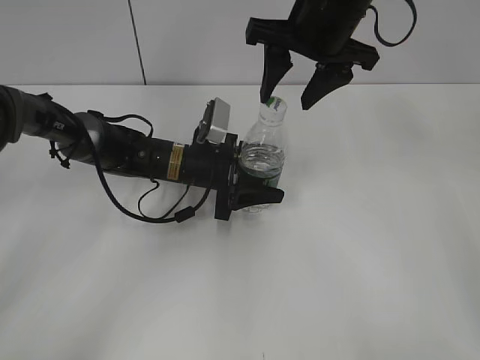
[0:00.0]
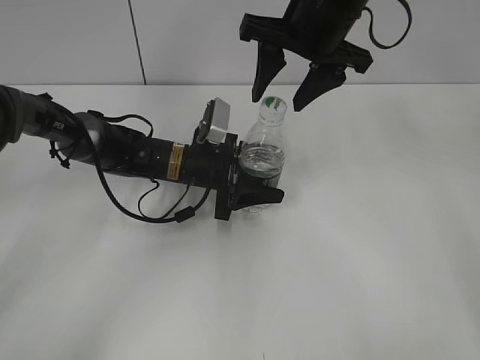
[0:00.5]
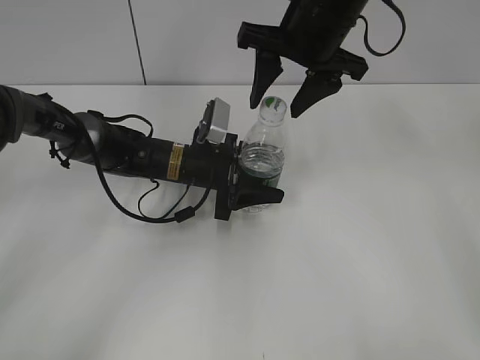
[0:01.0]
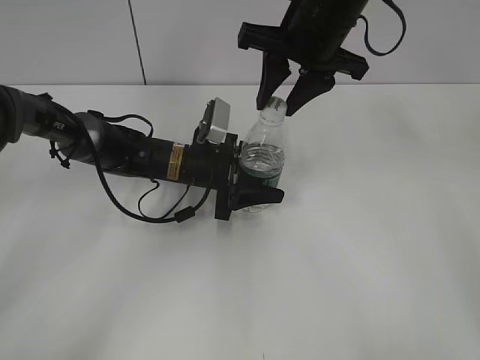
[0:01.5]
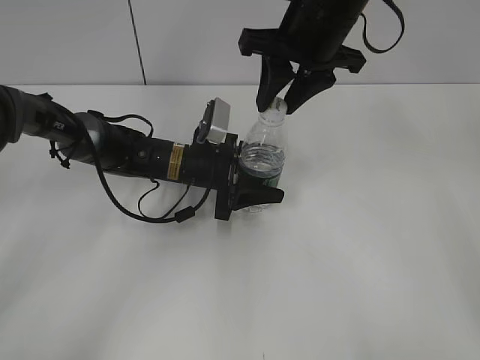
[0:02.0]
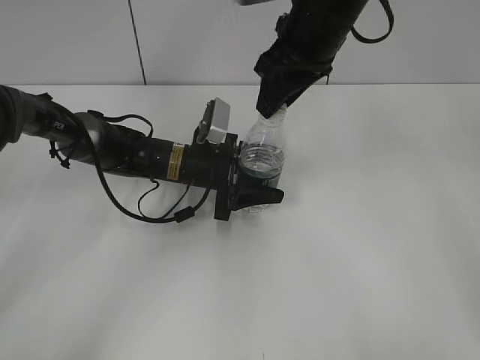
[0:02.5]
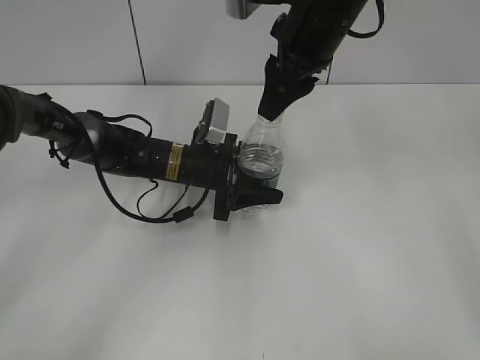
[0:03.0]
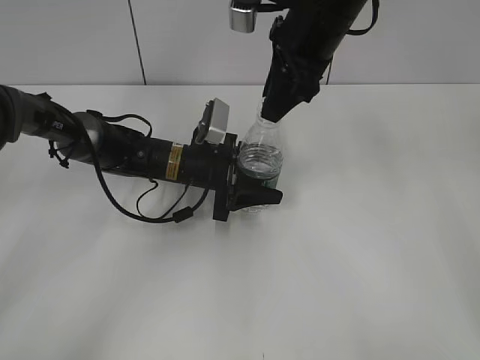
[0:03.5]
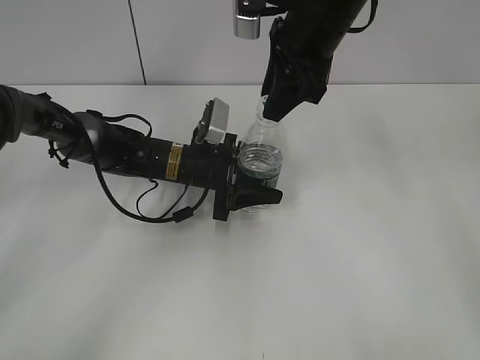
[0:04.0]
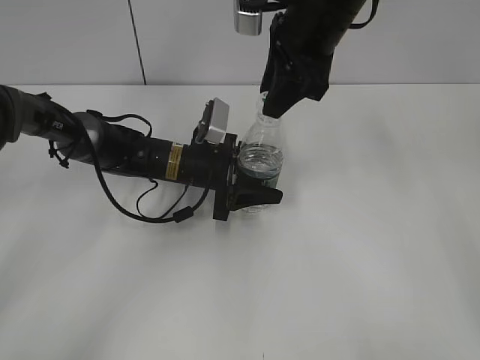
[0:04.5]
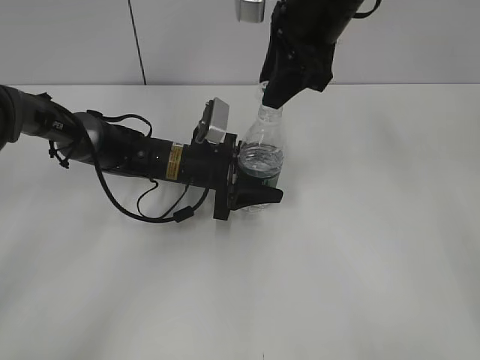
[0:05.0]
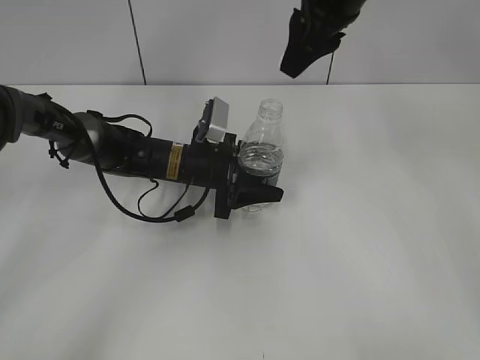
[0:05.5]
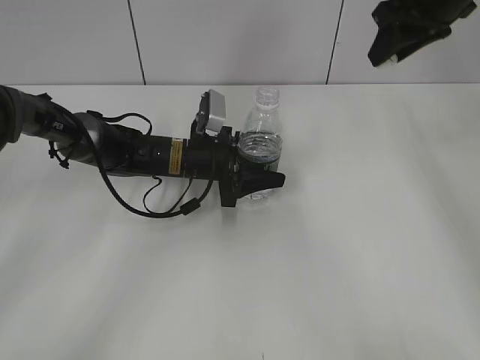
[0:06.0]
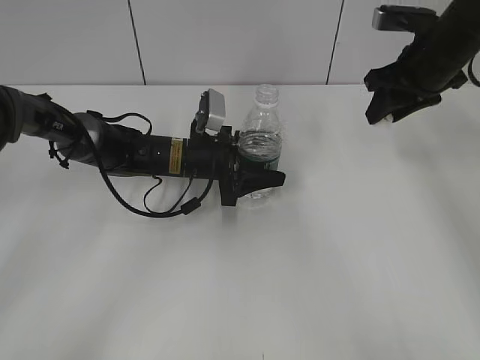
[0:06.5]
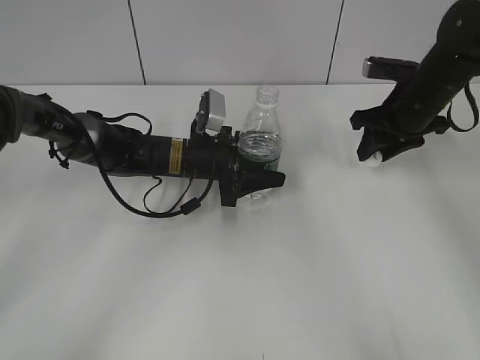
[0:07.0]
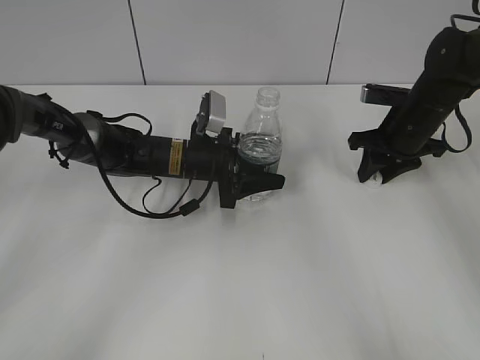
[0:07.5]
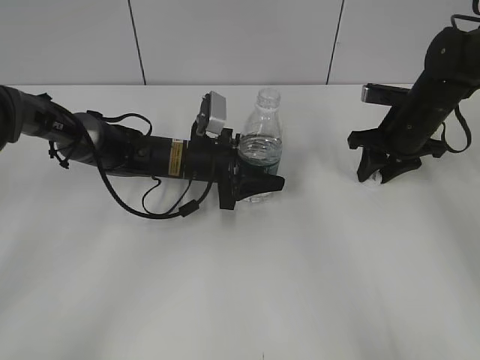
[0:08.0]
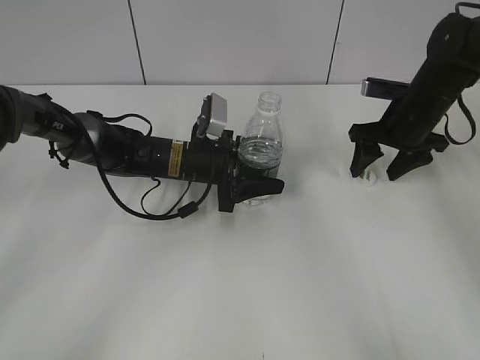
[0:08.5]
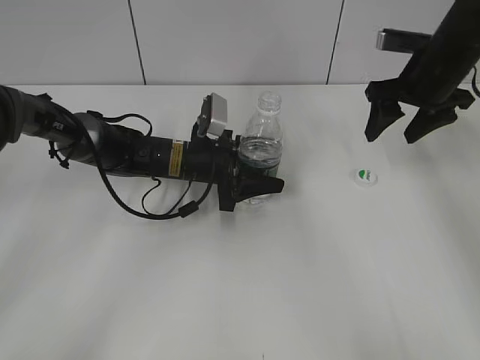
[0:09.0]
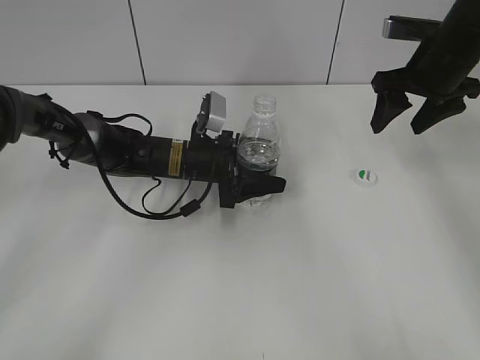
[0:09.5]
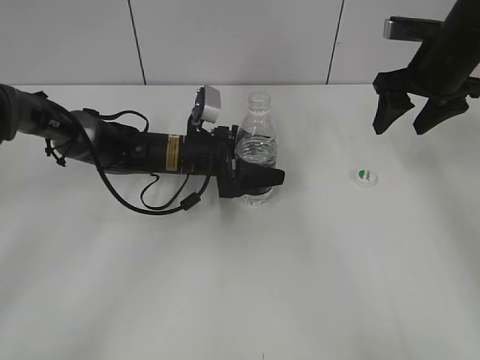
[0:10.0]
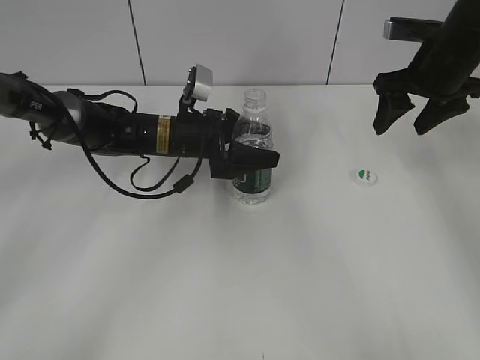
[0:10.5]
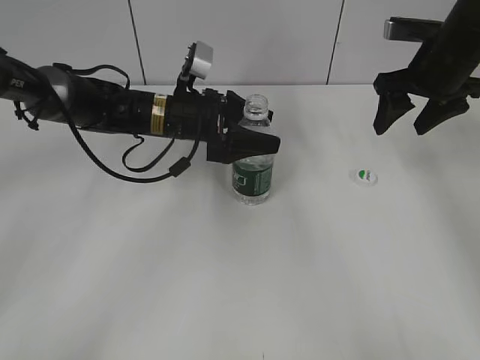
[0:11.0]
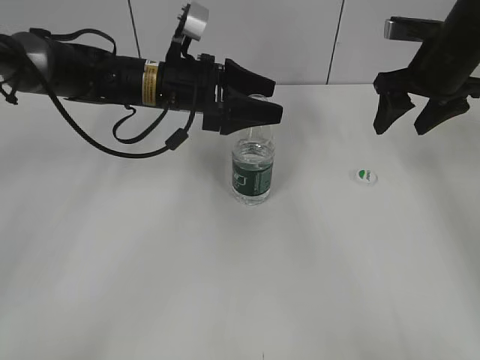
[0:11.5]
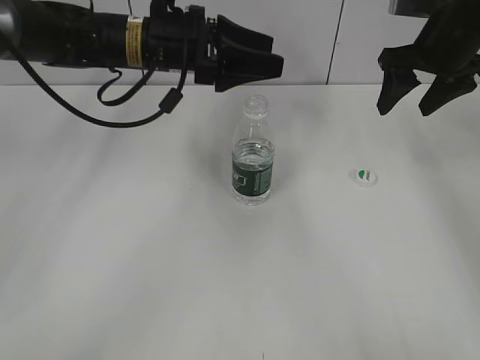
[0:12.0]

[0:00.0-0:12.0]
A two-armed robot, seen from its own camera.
Step, 0:00.0 to 0:05.0: Unscrew the bottle cap with the right gripper while holding the bottle with the left gripper.
Step, 0:05.5 to 0:08.5: Place the bottle cap on the table with the right gripper.
Step, 0:09.0 to 0:10.5: Place the bottle on the table with the left gripper.
0:00.0 to 0:02.0: The right gripper closes its fingers.
0:04.0 to 0:06.0: The right gripper is displaced to the right by approximately 15 cm.
0:06.0 to 0:08.0: The right gripper heads downward, covering about 20 cm.
0:08.0 to 0:10.0: The right gripper moves upward, approximately 10 cm, and opens up. Meanwhile the left gripper opens up.
0:10.0 to 0:12.0: The left gripper travels upward by roughly 15 cm.

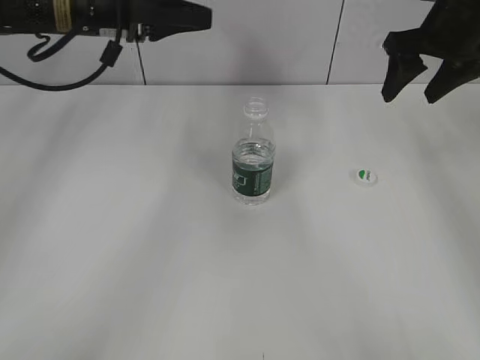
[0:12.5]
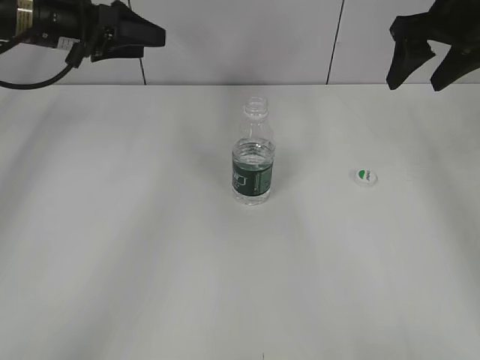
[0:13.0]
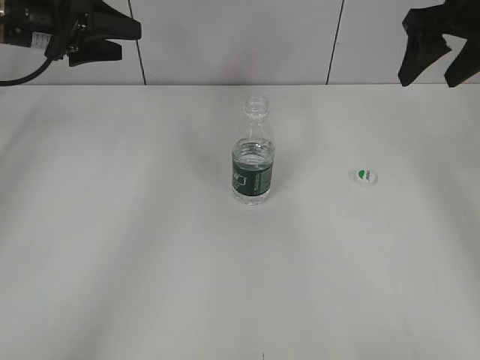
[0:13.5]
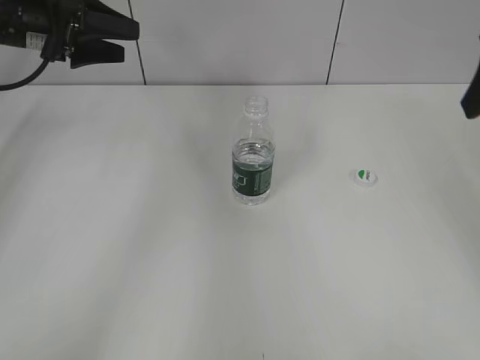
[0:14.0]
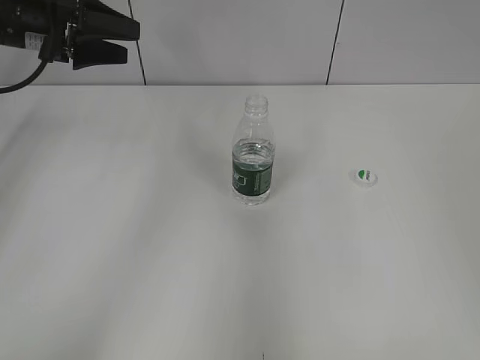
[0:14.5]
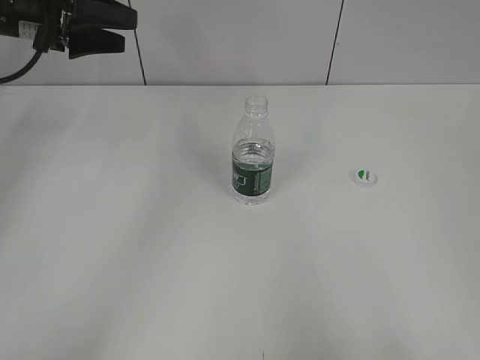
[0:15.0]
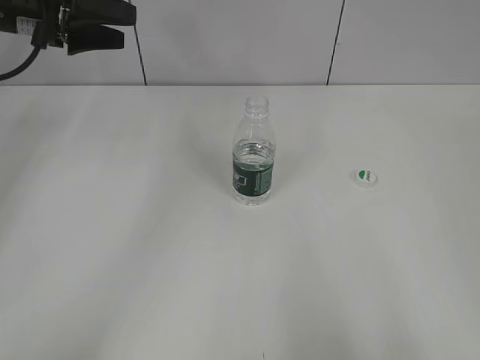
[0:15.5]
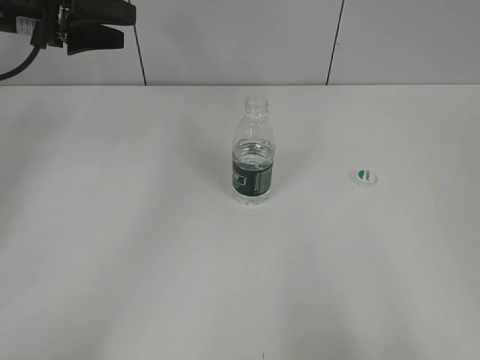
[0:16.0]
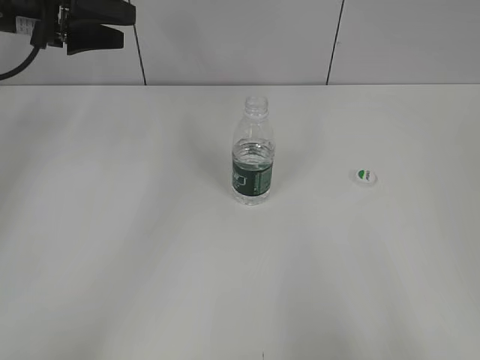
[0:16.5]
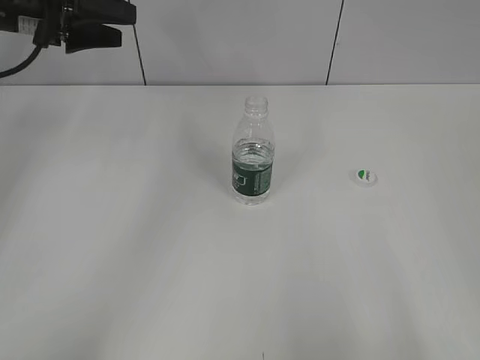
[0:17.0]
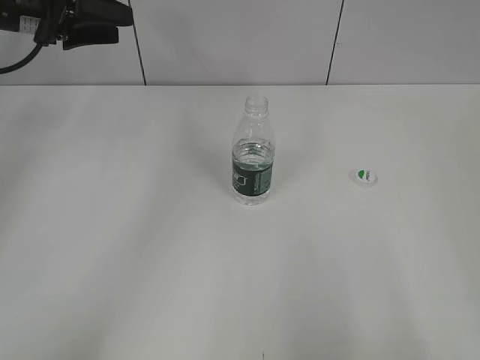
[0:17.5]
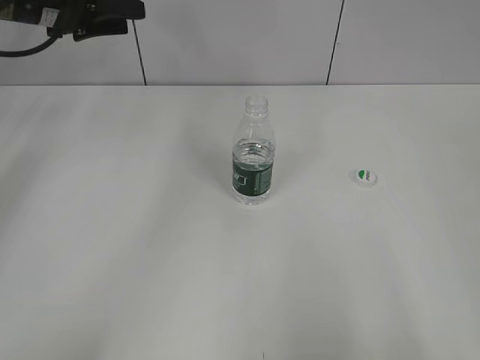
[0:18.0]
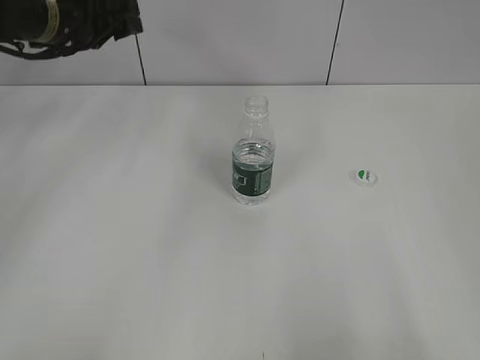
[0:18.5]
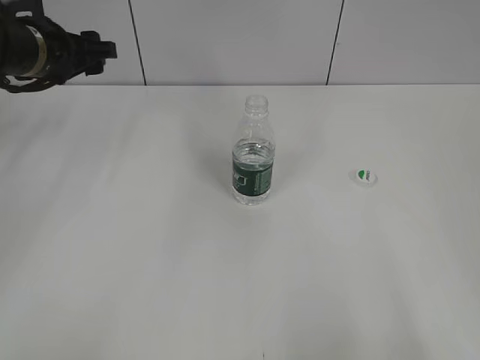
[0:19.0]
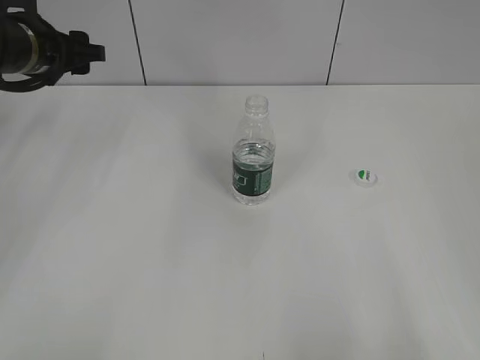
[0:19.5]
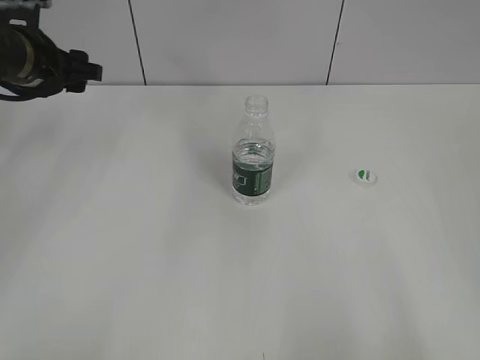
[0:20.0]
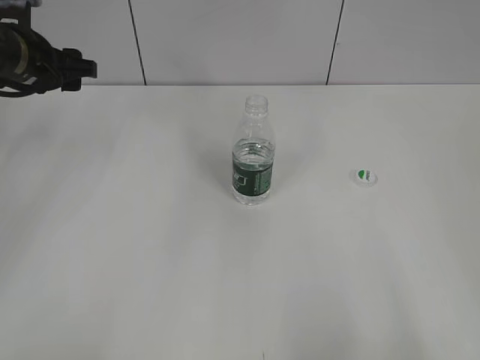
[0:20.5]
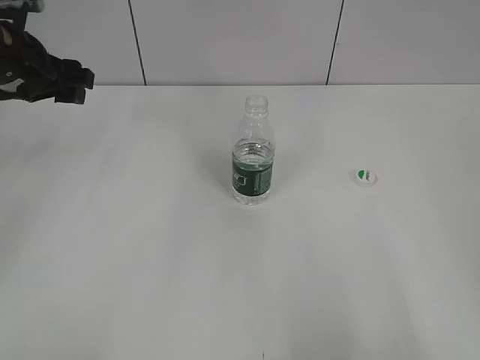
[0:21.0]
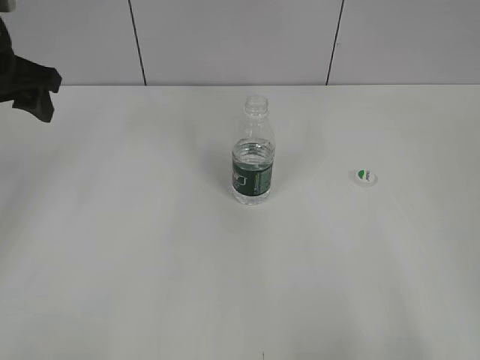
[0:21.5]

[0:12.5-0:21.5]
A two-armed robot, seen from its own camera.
0:12.5 to 0:14.5: The left gripper is displaced to the left by some 10 cm. The right gripper heads backward, covering approximately 30 cm.
0:17.0 to 0:19.5: The left gripper closes, then reopens.
0:19.5 to 0:21.5: The left gripper travels backward by some 5 cm.

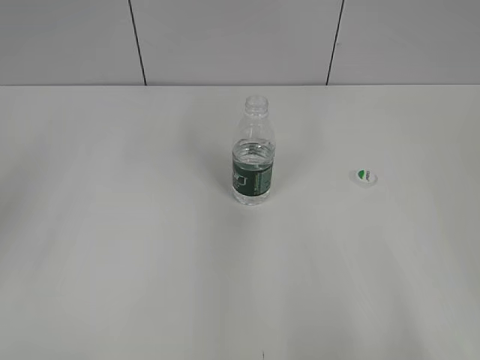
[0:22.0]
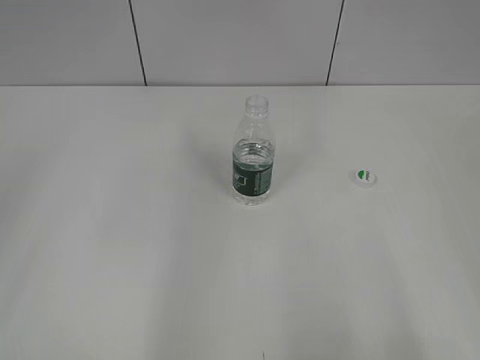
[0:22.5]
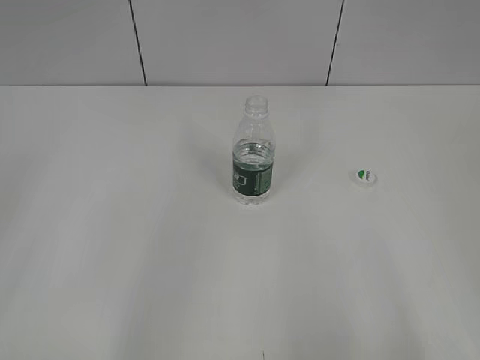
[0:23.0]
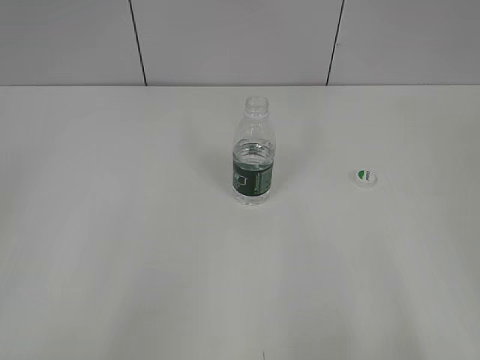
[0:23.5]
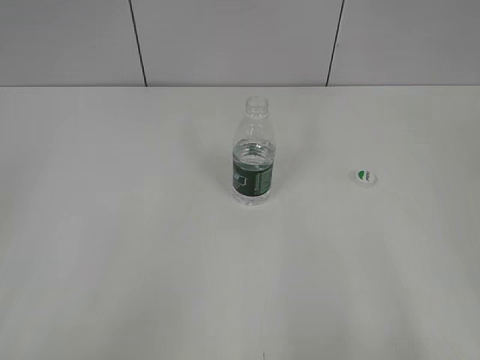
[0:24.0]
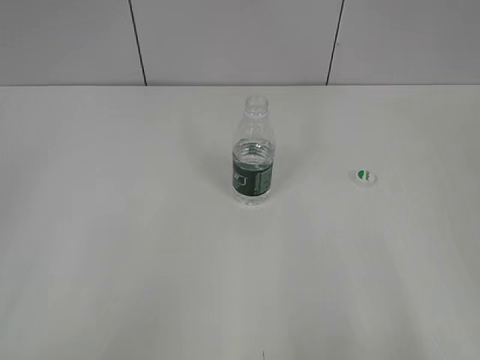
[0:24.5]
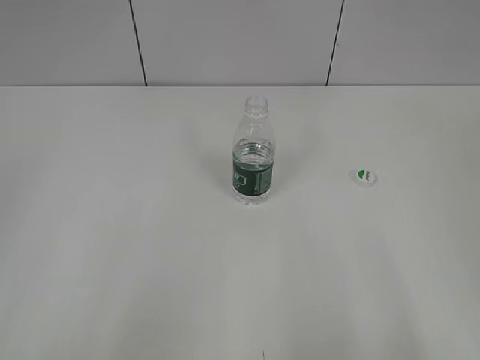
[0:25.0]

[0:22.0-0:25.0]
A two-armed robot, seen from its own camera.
0:22.0 to 0:23.5: The left gripper is displaced backward by approximately 25 cm.
